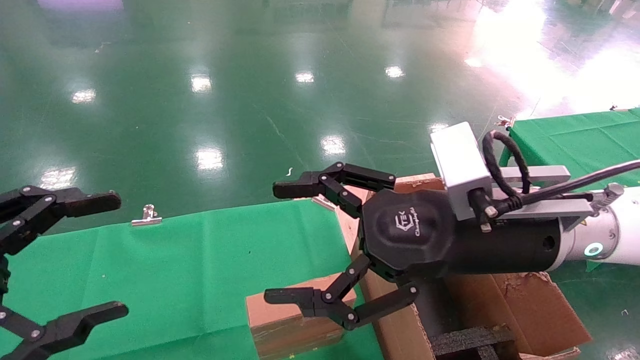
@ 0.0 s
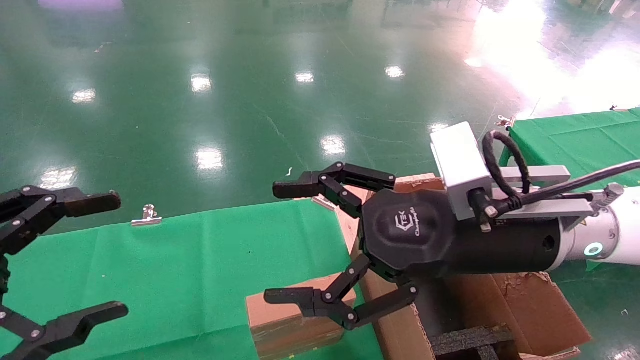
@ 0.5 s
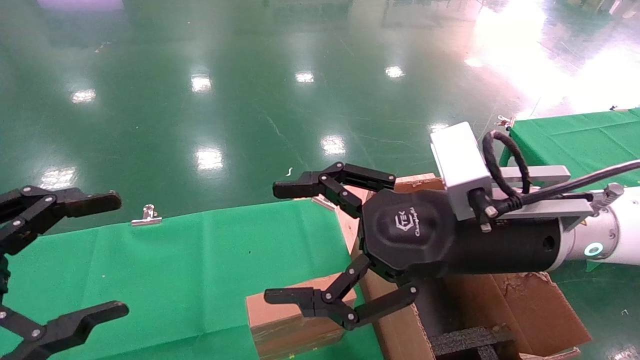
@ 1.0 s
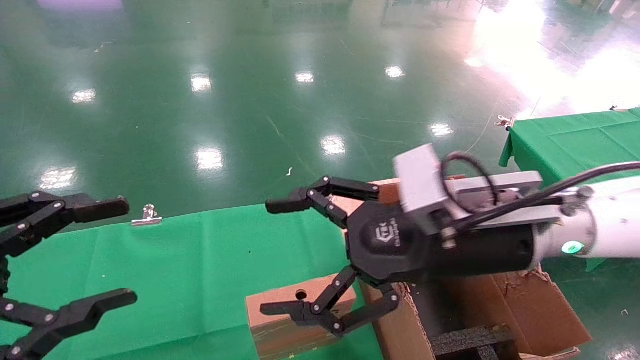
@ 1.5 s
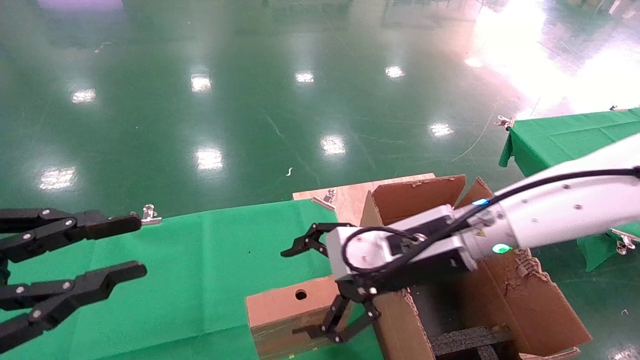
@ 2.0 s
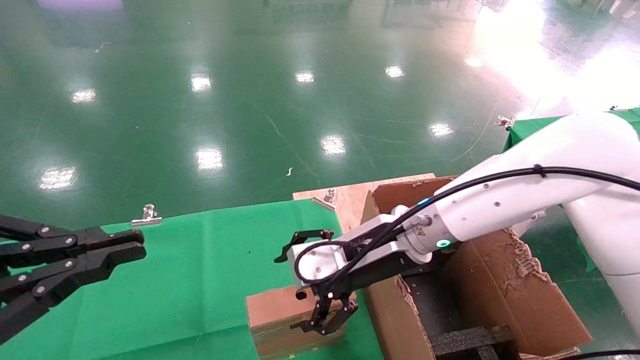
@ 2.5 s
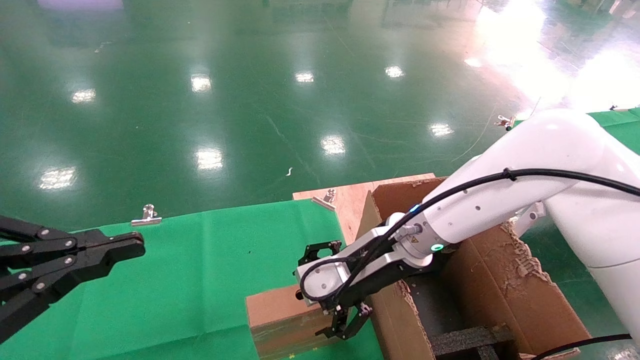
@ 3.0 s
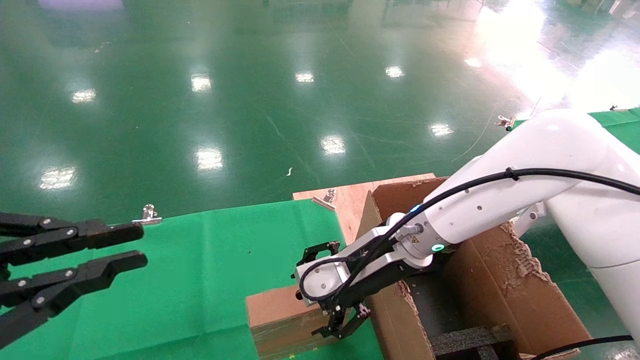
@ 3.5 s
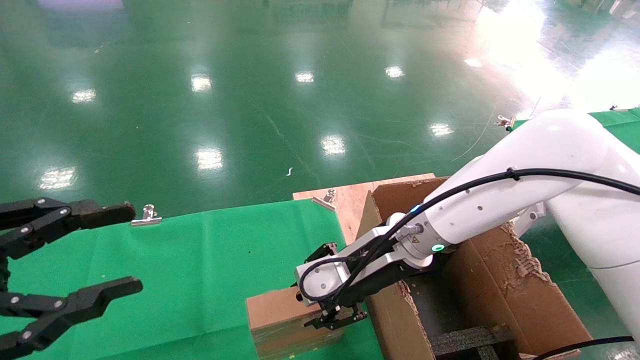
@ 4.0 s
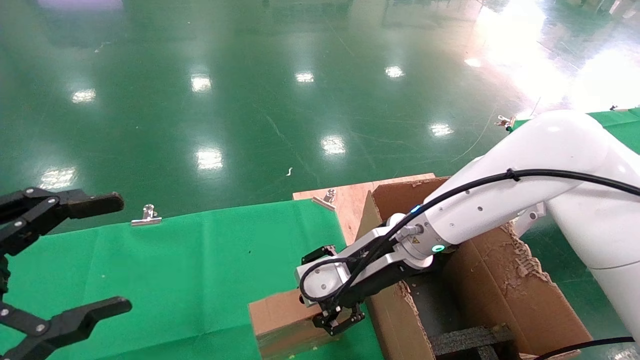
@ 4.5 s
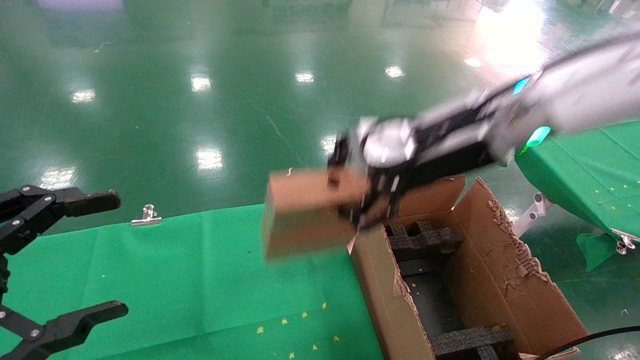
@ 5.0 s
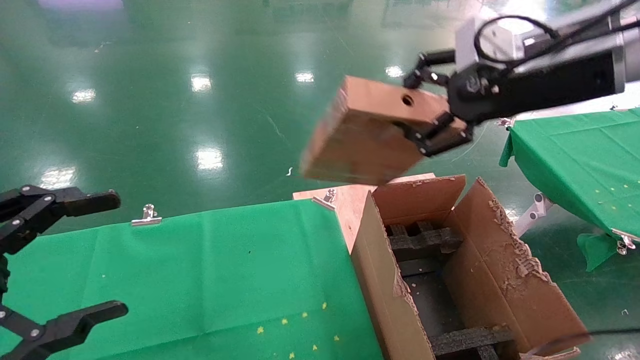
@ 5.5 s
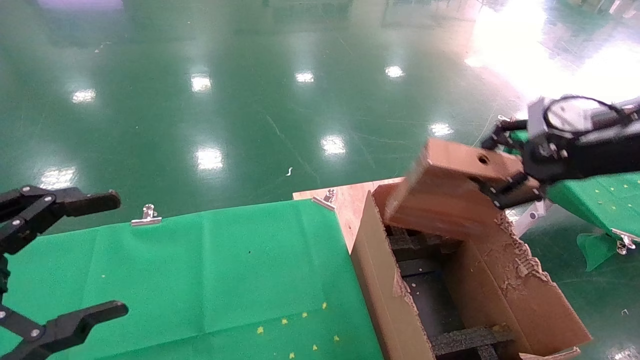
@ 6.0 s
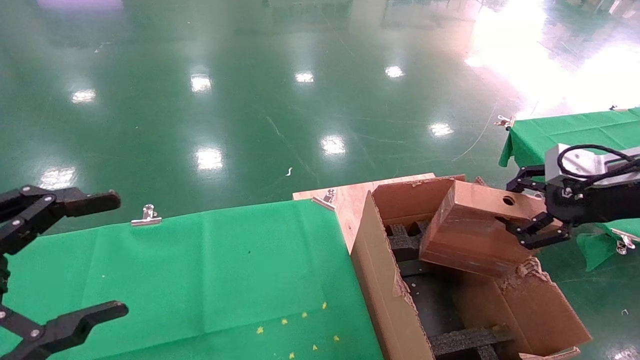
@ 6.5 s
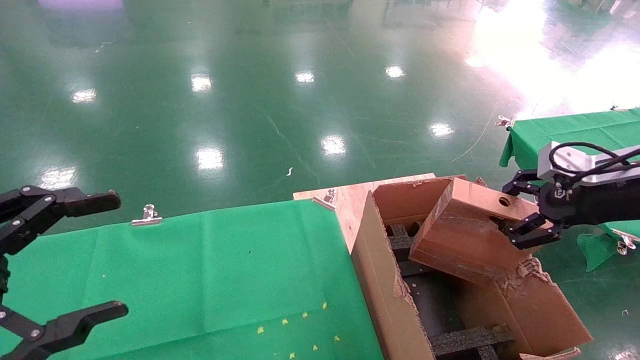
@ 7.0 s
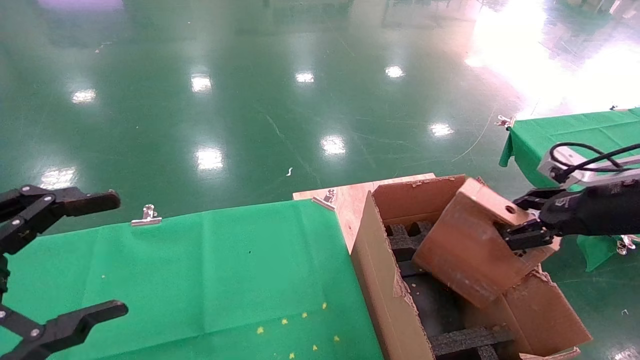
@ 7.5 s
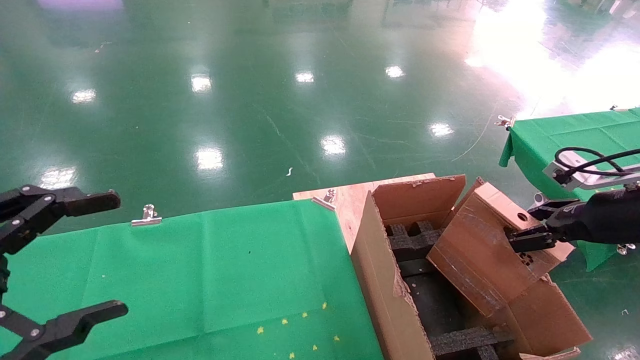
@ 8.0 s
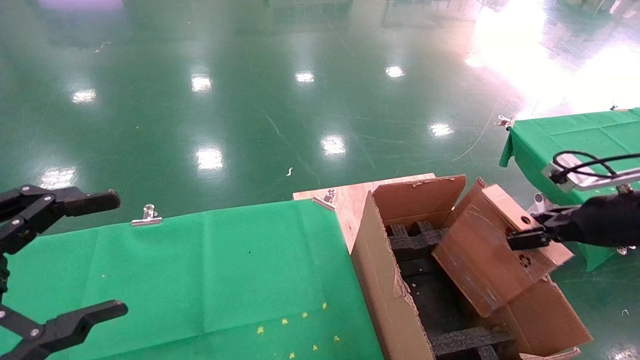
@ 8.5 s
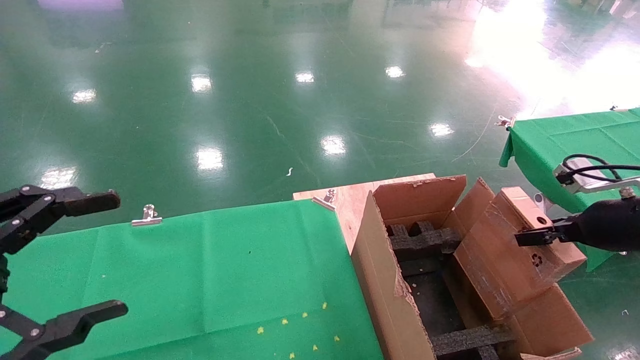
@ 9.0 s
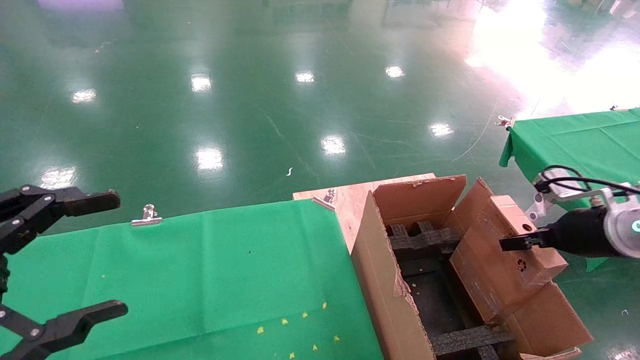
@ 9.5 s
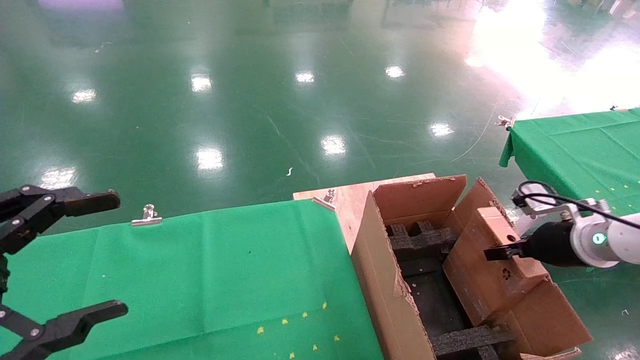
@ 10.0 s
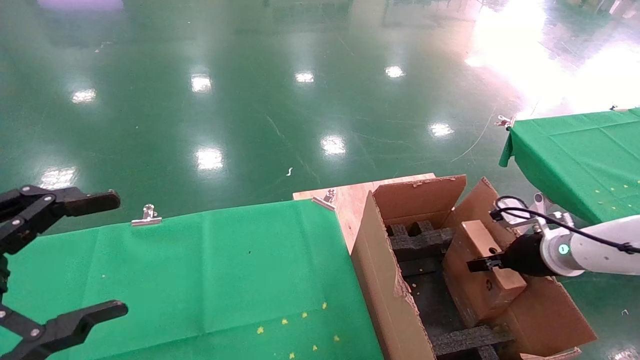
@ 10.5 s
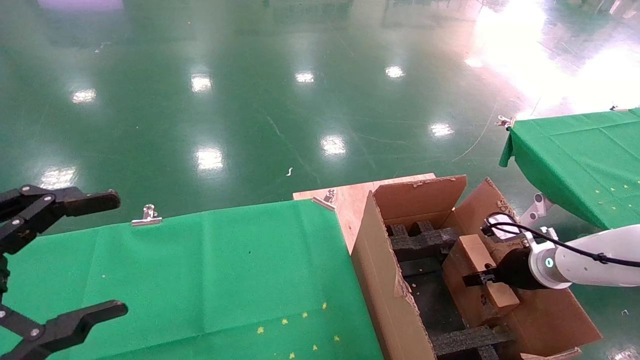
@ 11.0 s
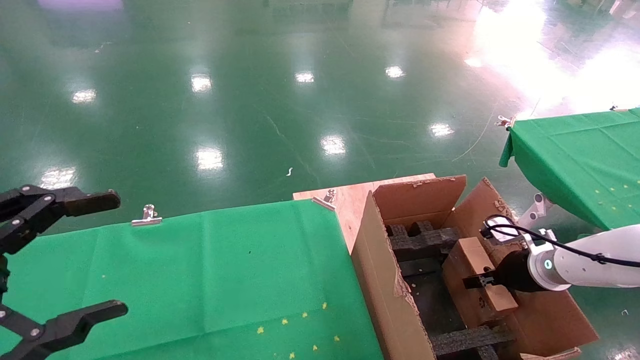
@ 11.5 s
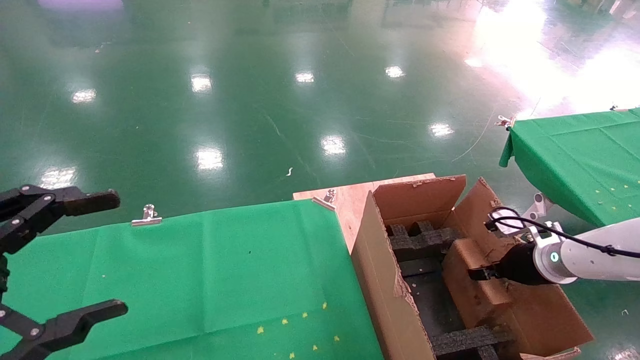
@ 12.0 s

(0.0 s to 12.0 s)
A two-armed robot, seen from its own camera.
Task of the whole recording: using a robotic arm to pick up a cardboard box and palace it the carton.
Step, 2.0 s - 4.0 s: Pick up the mouse and the power cord paper box.
0.0 s - 2.0 s: The left gripper closes its fingers. Meanwhile the right gripper heads forward, covering approximately 5 cm.
2.0 s - 4.0 s: The left gripper closes and opens again. Meanwhile the right gripper moves about 5 cm, and closes its fingers.
4.0 s - 6.0 s: The left gripper opens up; the right gripper moves to the right and upward, roughly 30 cm, and closes.
6.0 s - 8.0 s: The right gripper heads downward and to the right, covering about 10 cm.
8.0 s - 10.0 s: The right gripper is displaced downward and forward by some 10 cm.
10.0 s - 12.0 s: The right gripper heads downward, covering some 5 cm.

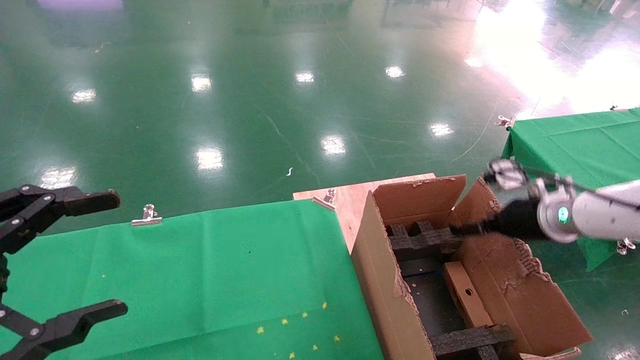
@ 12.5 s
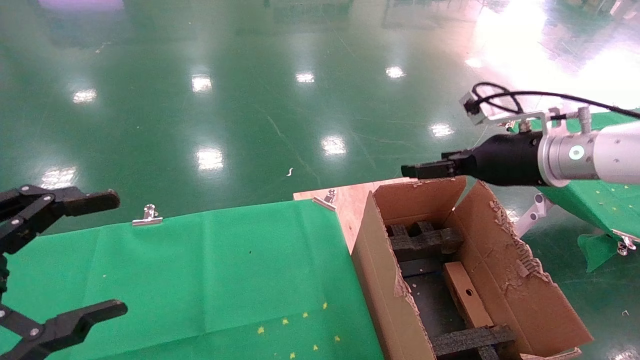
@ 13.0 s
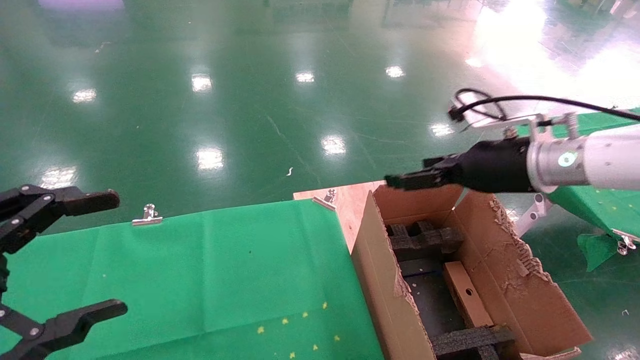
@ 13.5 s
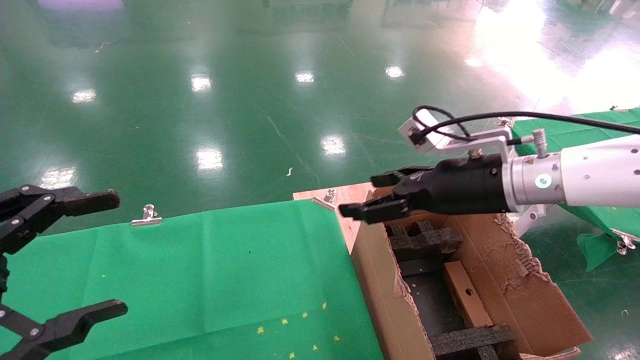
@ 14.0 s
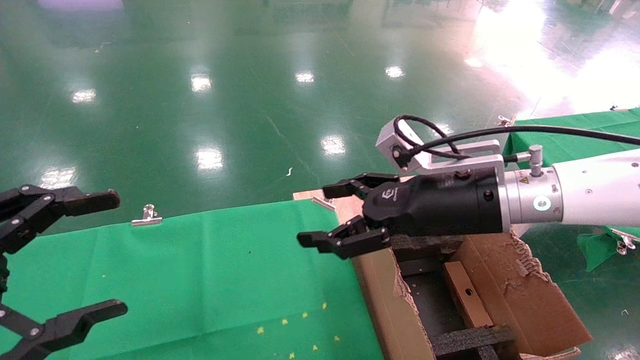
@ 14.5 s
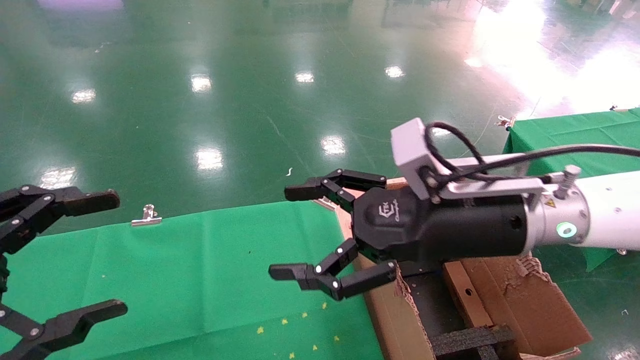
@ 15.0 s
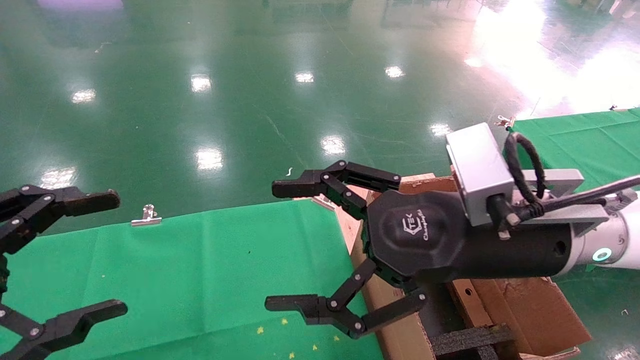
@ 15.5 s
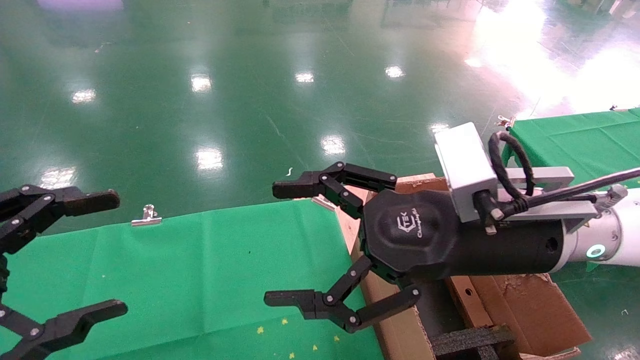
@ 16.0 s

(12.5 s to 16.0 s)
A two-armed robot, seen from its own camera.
Task of the whole recording: using a robotic arm to pick up a cardboard box and palace it the carton.
12.5 s - 14.5 s: The right gripper is displaced to the left, backward and upward by about 20 cm.
14.5 s - 16.0 s: The right gripper travels backward by about 5 cm.

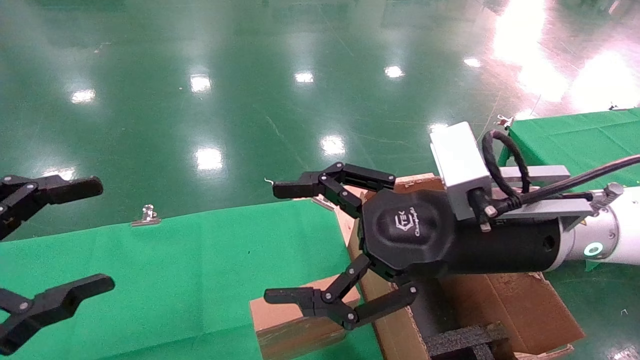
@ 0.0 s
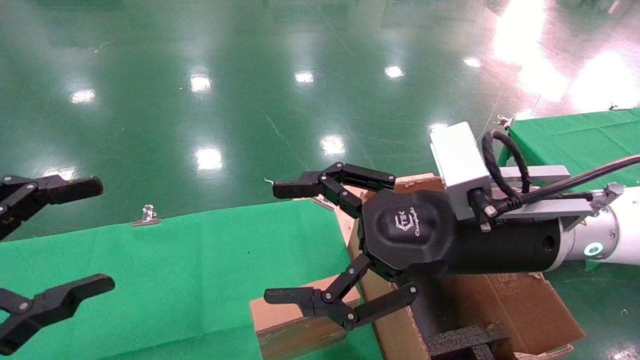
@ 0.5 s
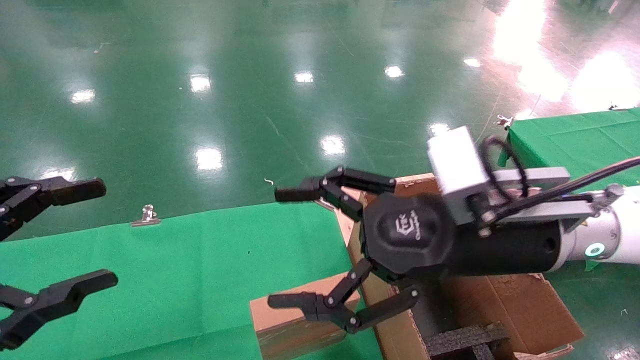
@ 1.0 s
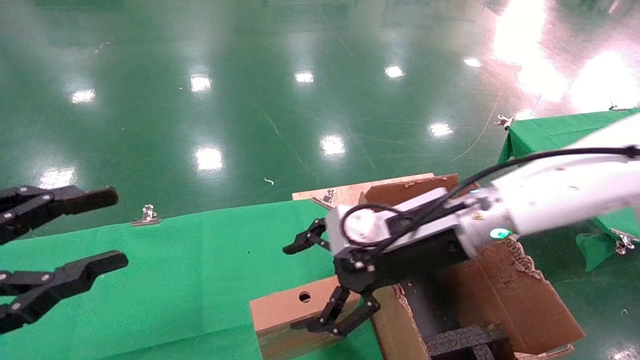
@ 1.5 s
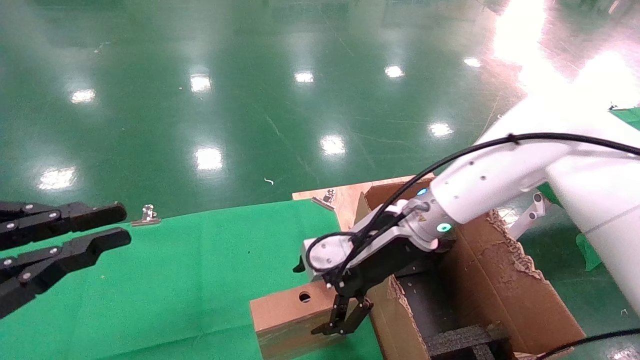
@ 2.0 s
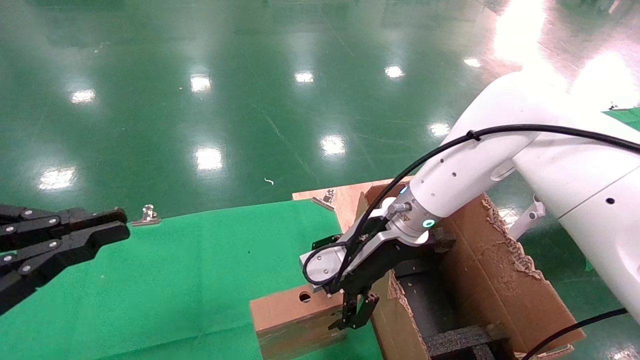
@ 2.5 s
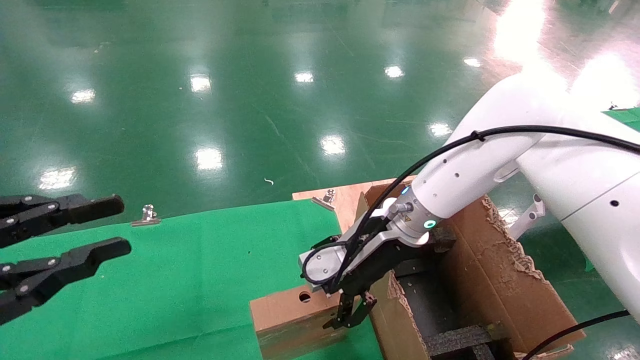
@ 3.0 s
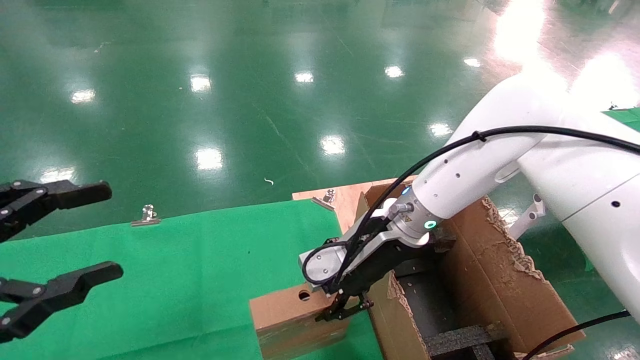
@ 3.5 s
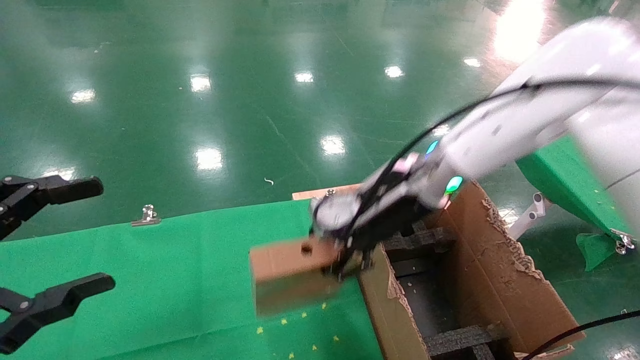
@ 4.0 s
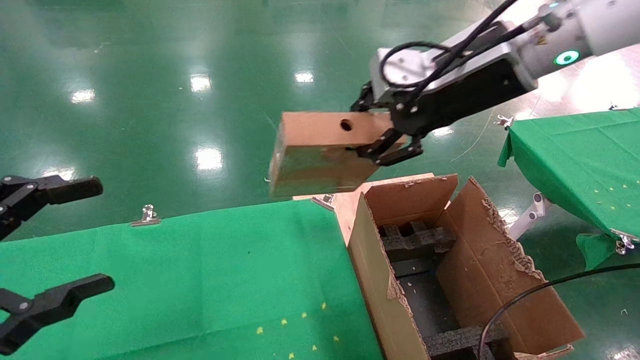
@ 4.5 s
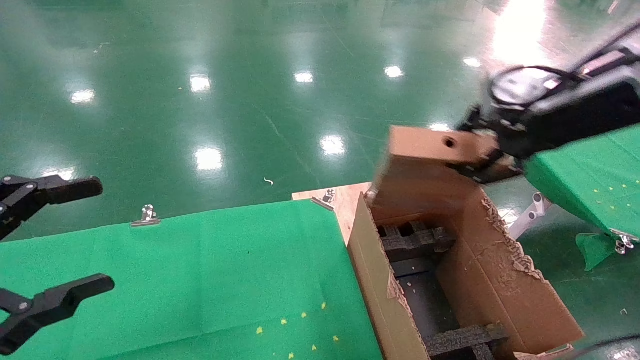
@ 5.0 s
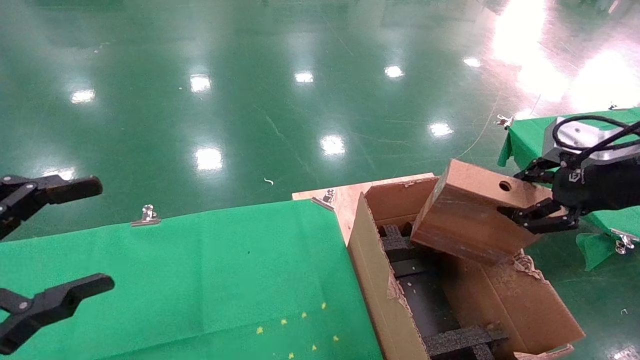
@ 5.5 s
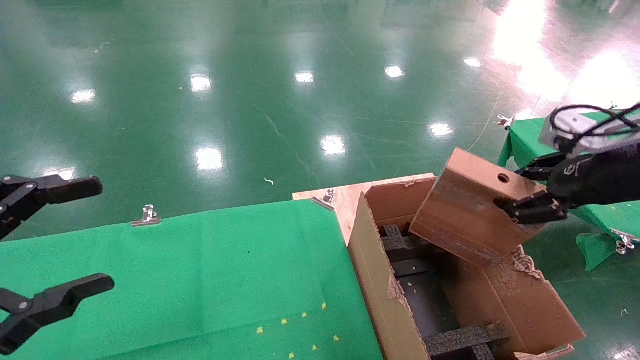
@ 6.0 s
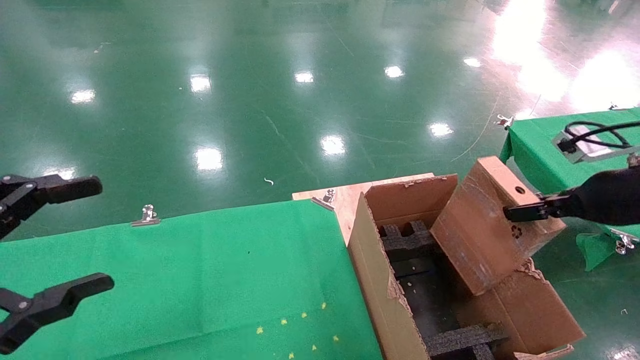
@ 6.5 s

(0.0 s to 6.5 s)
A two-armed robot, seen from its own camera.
Task of the whole recording: using a robotic arm to pick up a cardboard box and palace it the carton.
Step, 1.5 s - 3.5 s: Pick up the mouse and the power cord paper box.
0.0 s - 2.0 s: The right gripper shifts about 15 cm forward and downward; the left gripper closes up.
2.0 s - 4.5 s: The right gripper moves upward and to the right, approximately 20 cm, and closes up; the left gripper opens its fingers.
4.5 s - 6.5 s: The right gripper moves to the right and downward, roughly 25 cm.
